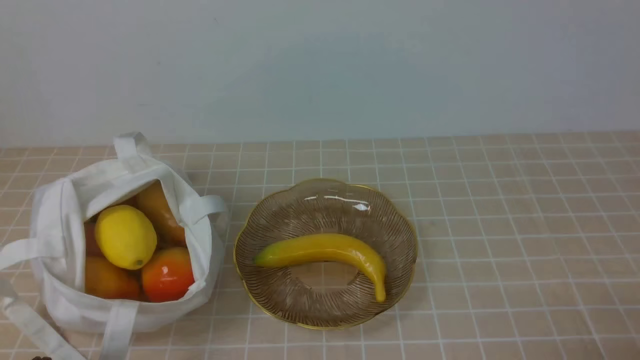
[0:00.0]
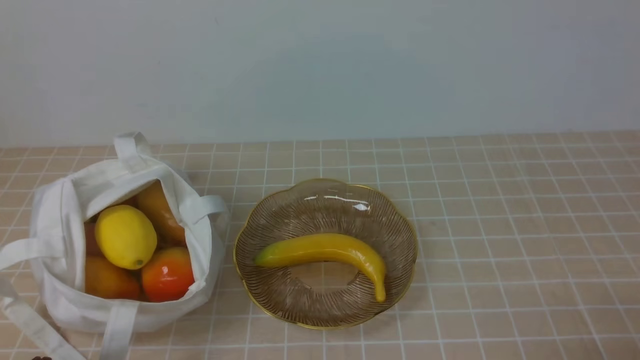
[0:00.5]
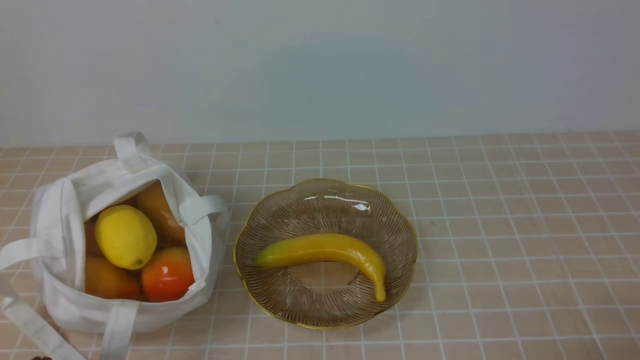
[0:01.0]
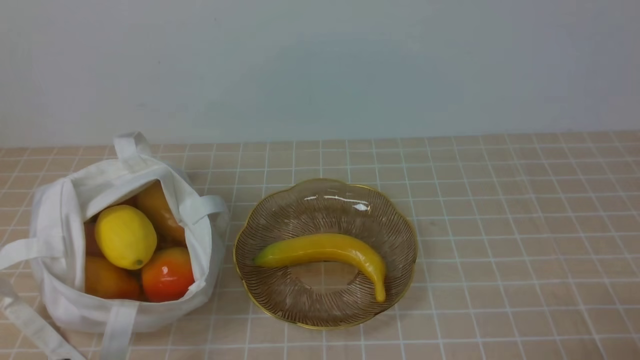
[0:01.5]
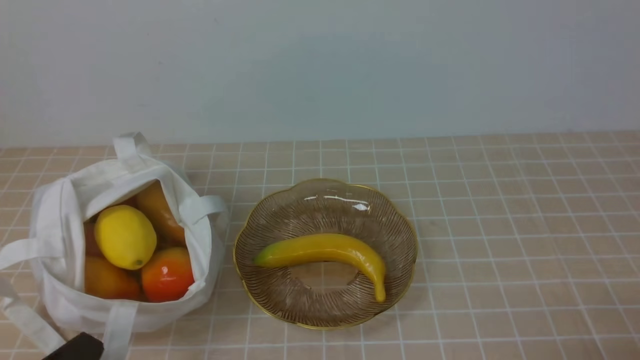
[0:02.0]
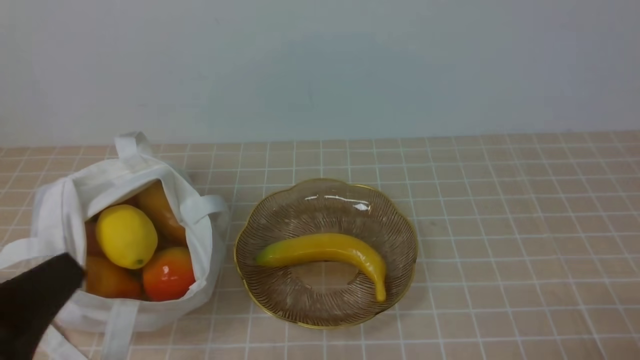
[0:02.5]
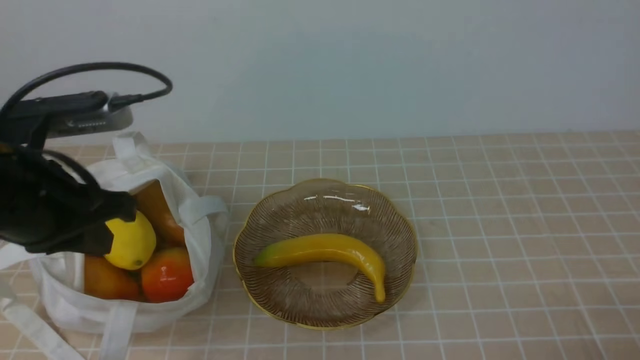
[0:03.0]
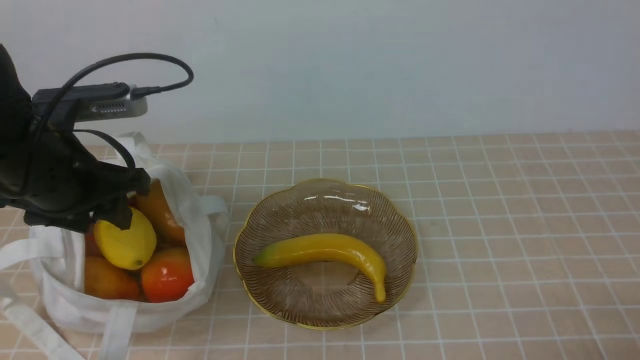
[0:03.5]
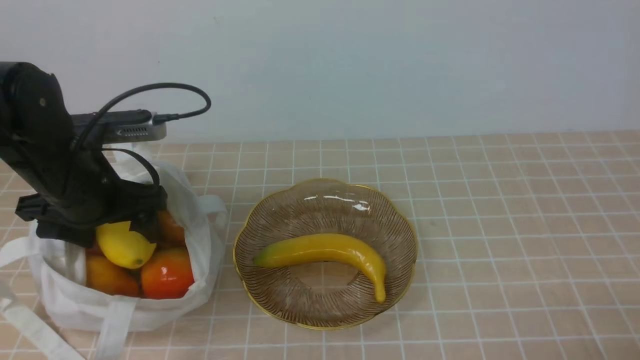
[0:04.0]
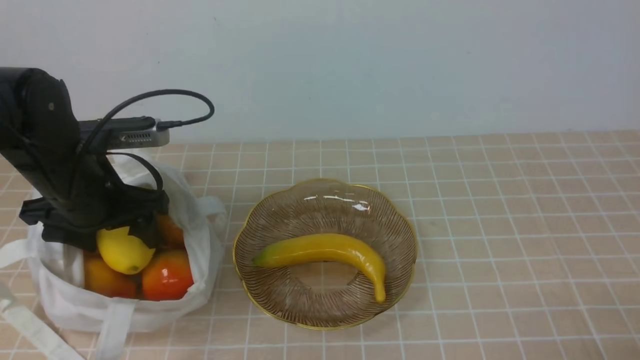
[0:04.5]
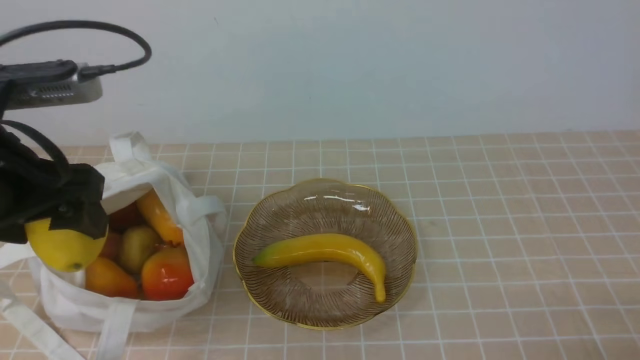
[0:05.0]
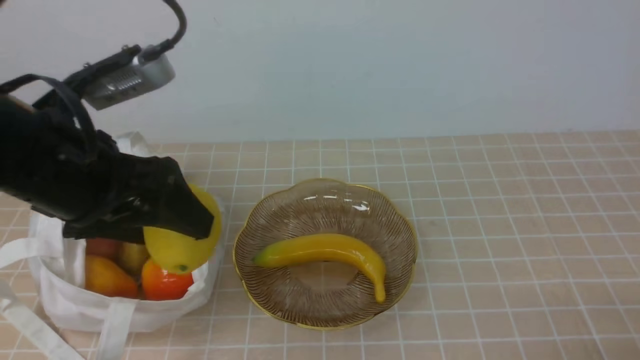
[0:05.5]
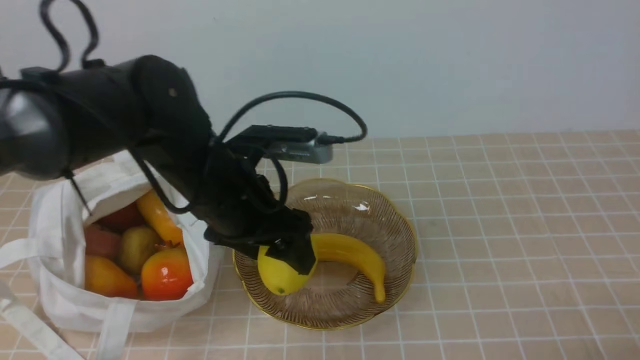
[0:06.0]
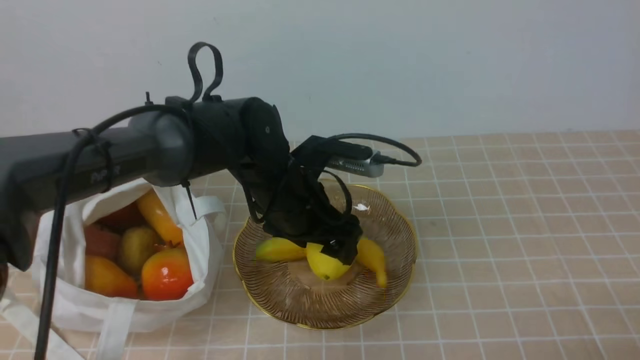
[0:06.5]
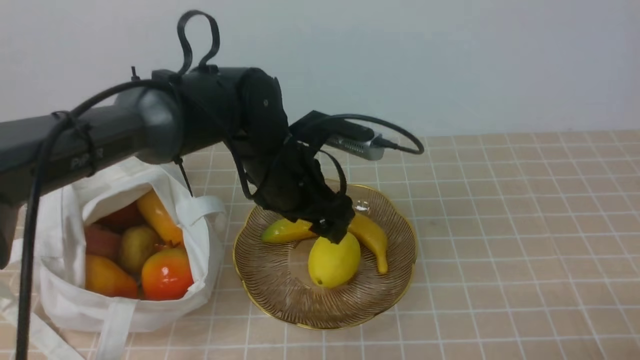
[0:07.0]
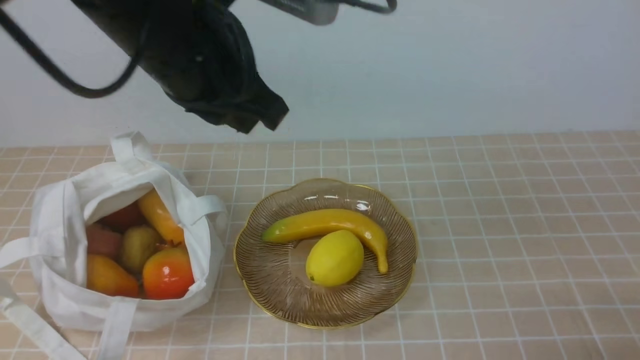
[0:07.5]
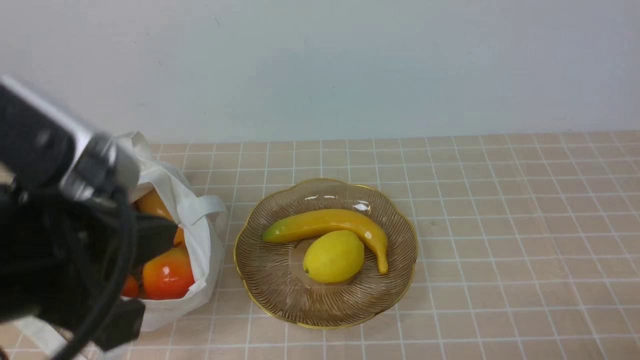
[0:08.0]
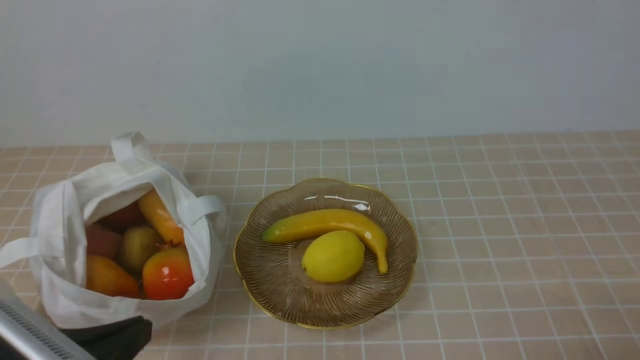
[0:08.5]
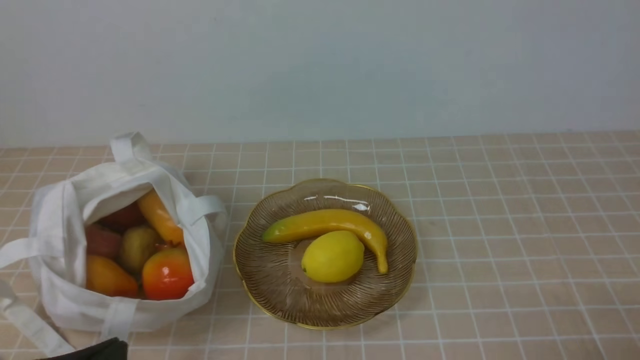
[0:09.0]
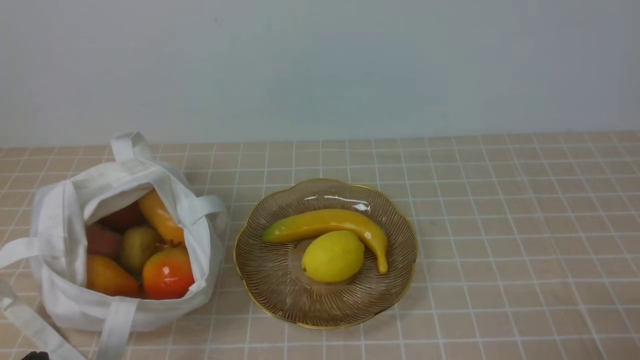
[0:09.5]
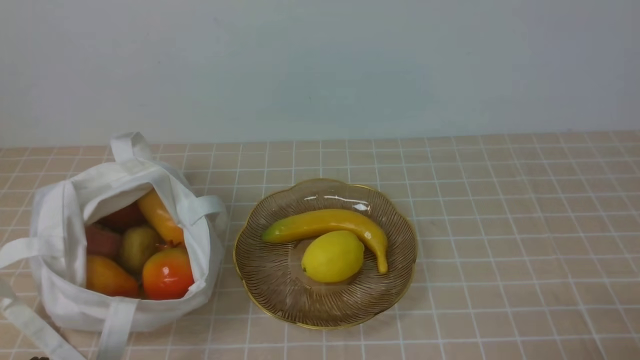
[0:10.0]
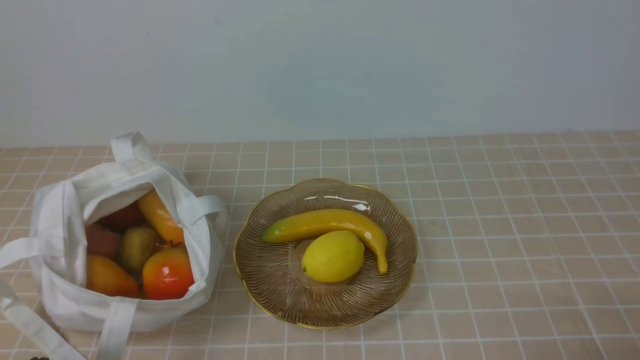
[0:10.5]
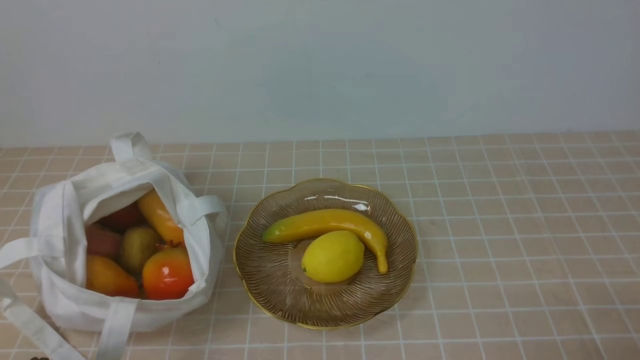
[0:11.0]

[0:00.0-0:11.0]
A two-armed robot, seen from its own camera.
Step, 0:00.0 to 0:04.5: use the left arm to grab a lemon from the bag.
Step, 0:05.0 to 0:06.5: use the left arm to put the lemon into the empty plate on the right.
0:02.0 to 0:03.5: The left gripper heads forward and upward, covering about 25 cm, and opens up.
0:03.5 to 0:05.5: The left gripper is displaced backward and upward by about 10 cm, and opens.
0:05.5 to 0:07.5: The left gripper goes about 15 cm to the right and forward, moves roughly 15 cm downward and comes back, and closes up.
0:07.5 to 0:09.0: The left gripper goes roughly 30 cm backward, downward and to the left.
0:09.0 to 0:11.0: The left gripper travels downward by roughly 5 cm.
